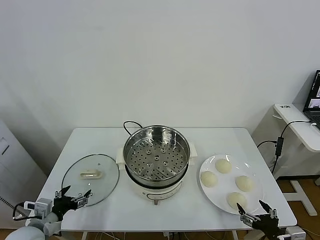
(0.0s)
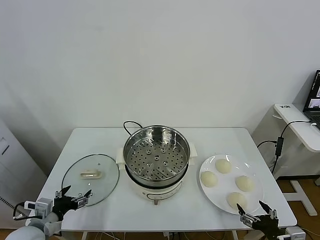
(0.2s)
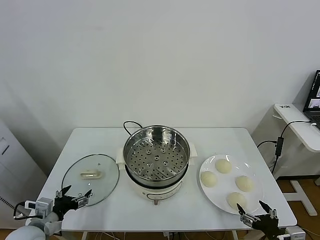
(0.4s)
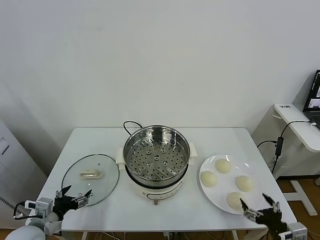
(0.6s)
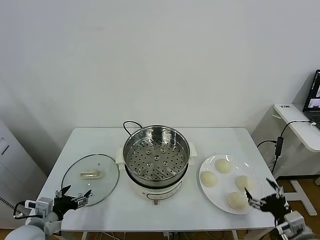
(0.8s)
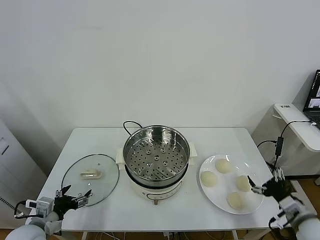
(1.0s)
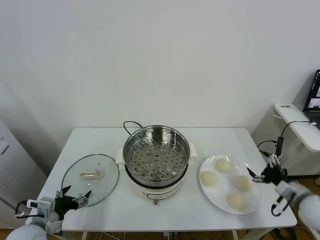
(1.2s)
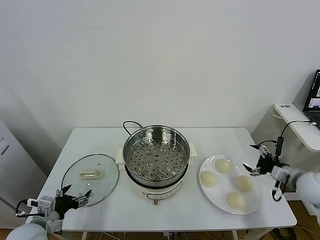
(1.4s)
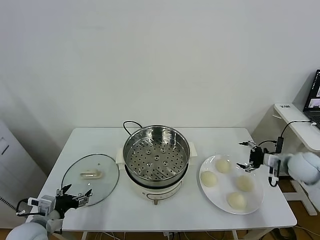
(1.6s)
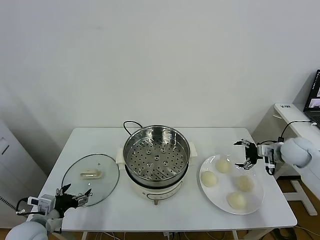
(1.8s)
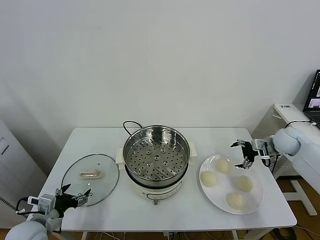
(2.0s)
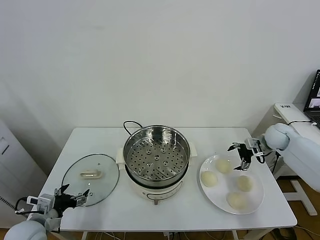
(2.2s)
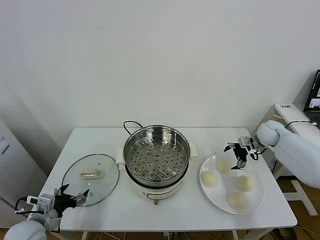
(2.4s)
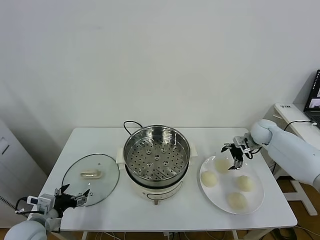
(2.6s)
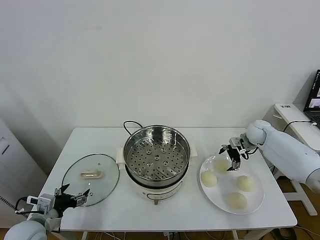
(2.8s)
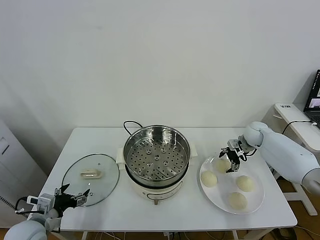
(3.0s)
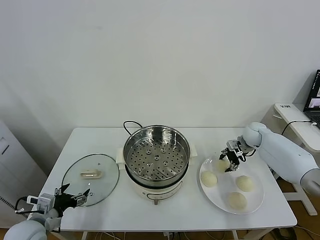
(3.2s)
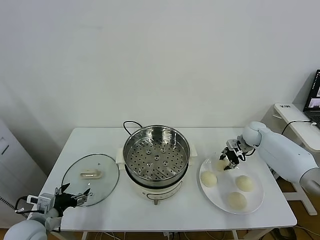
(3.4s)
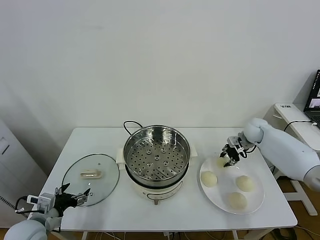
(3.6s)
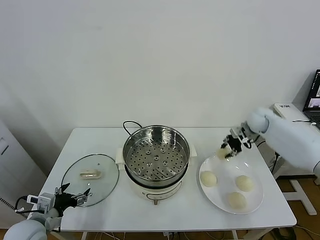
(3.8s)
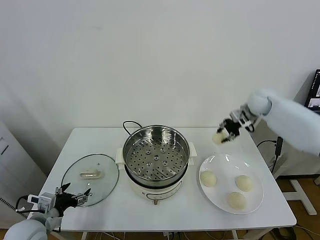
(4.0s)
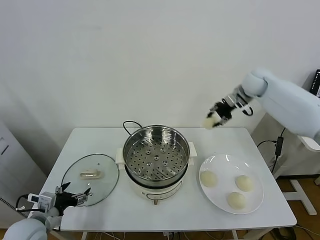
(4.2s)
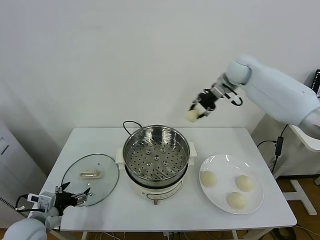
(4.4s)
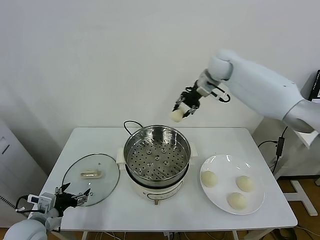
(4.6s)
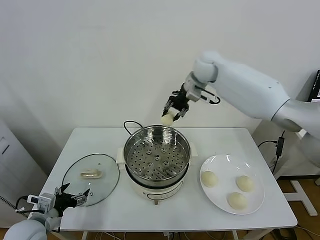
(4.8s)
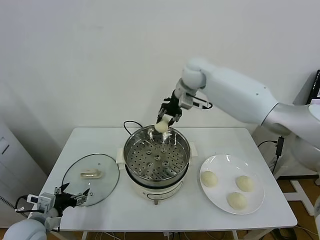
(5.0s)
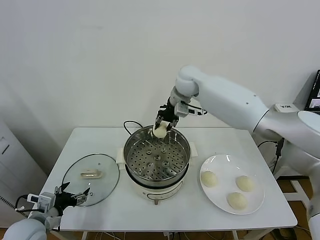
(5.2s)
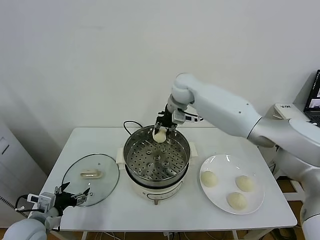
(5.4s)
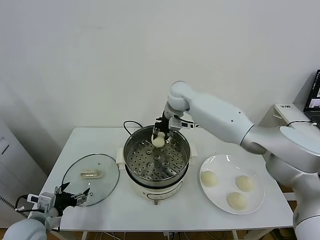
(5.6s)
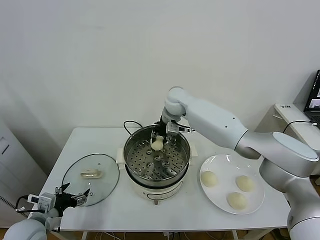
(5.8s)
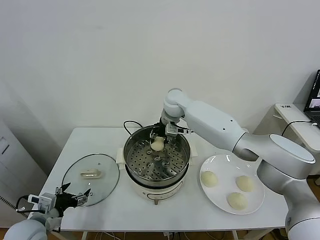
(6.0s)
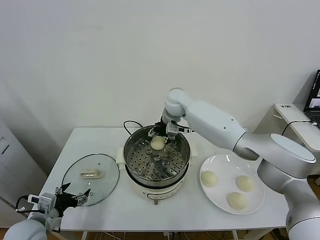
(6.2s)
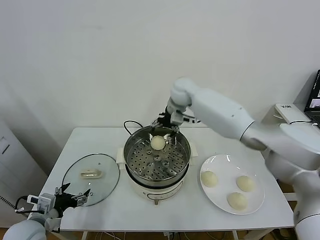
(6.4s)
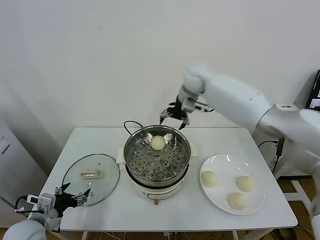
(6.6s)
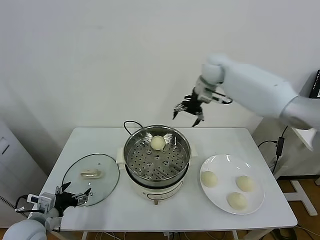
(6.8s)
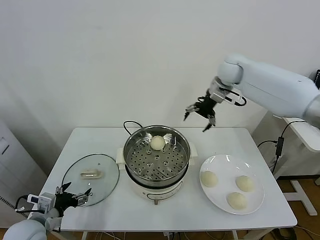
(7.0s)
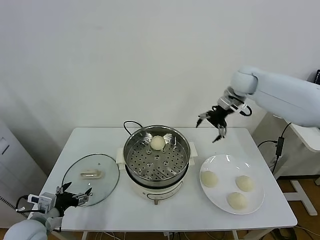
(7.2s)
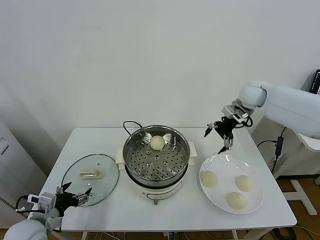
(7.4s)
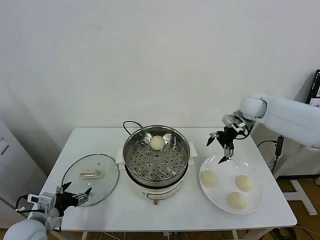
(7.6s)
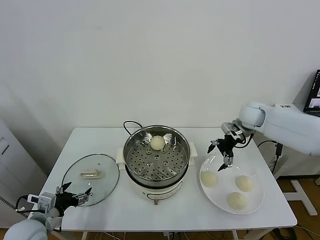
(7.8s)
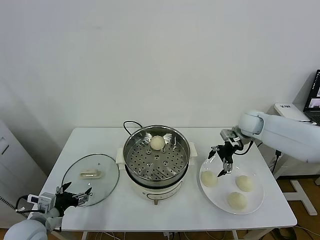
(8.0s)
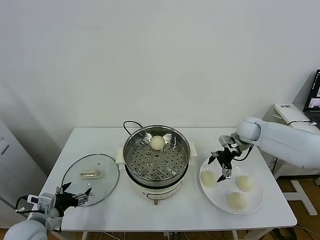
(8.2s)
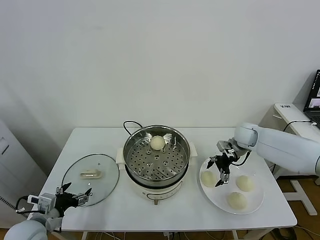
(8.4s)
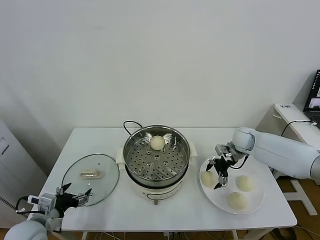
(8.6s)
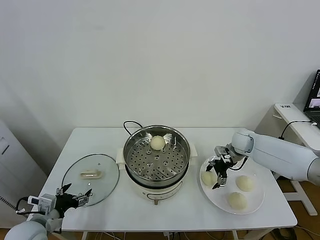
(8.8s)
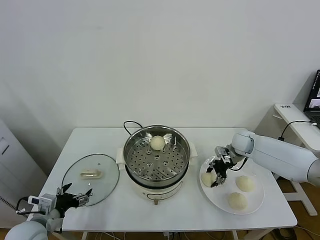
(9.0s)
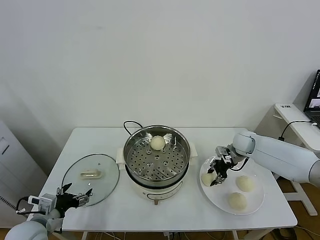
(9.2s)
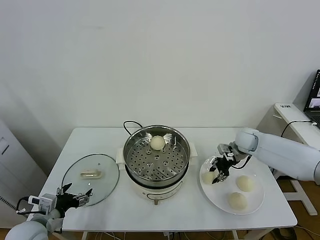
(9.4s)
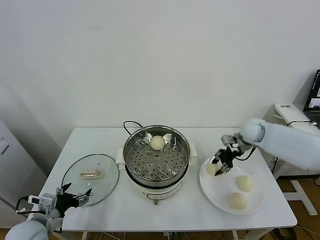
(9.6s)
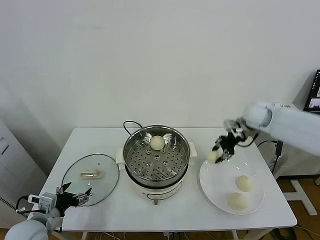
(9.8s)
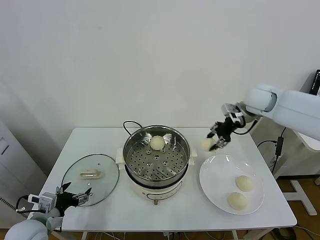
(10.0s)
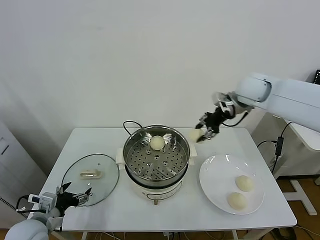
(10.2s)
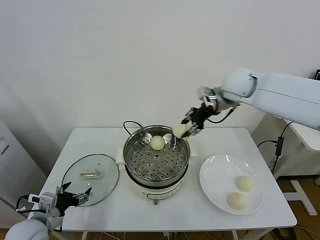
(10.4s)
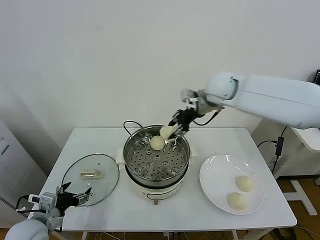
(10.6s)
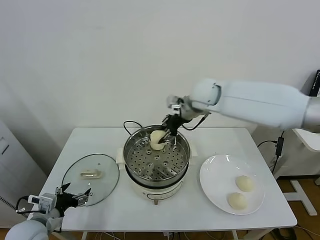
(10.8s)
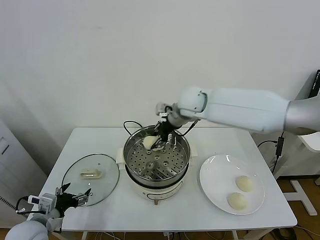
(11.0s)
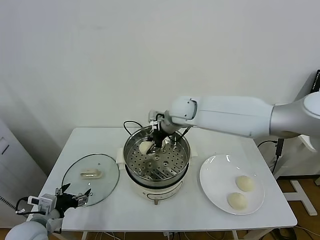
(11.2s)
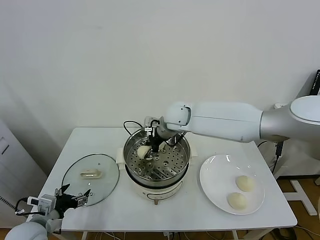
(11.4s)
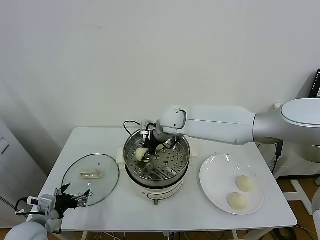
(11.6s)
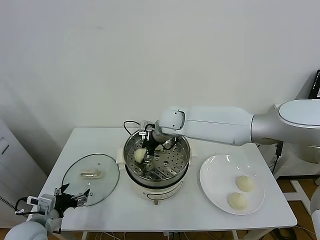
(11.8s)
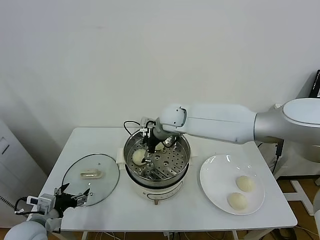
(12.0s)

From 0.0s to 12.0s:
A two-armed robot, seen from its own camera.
Task of the whole recording: take steamed baozi put them in steamer.
Step, from 0.0s to 3.0s: Grasp the baozi in the plate with right gripper.
Step, from 3.4s to 6.2s: Place the baozi on the steamer with right gripper.
Step, from 6.4s to 9.0s: Grasp the baozi in the plate with right gripper.
From 1.6s to 3.0s: The right gripper is displaced forward and to the left by roughly 15 cm.
From 3.0s to 4.4s: The right gripper travels upward and to the left by approximately 30 cm, and closes.
From 4.4s to 6.0s: The right gripper heads to the left and downward, covering some 20 cm, and opens.
From 6.0s to 7.6s: The right gripper is displaced to the right by about 25 cm, and opens.
From 7.6s to 9.0s: The right gripper travels downward by approximately 15 cm, and closes its fingers.
From 9.0s to 10.4s: The right gripper travels upward and to the left by about 30 cm.
From 10.4s to 12.0s: The right gripper heads to the left and downward, covering about 20 cm, and opens its fingers.

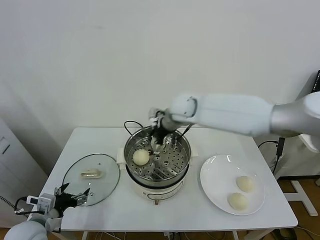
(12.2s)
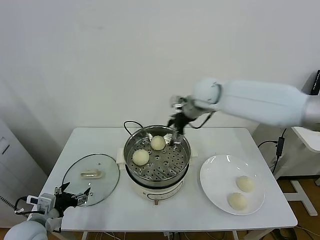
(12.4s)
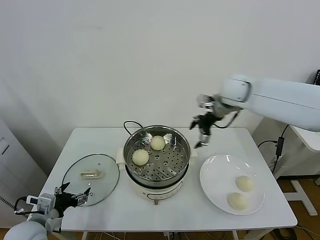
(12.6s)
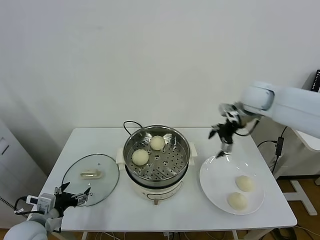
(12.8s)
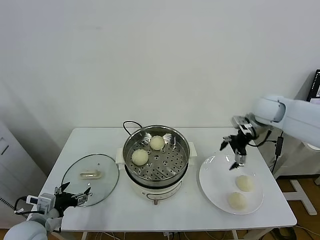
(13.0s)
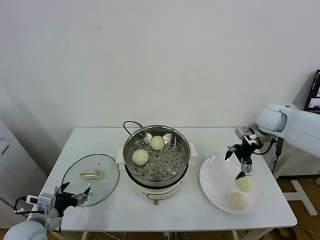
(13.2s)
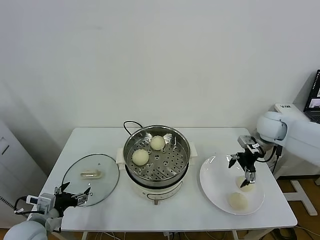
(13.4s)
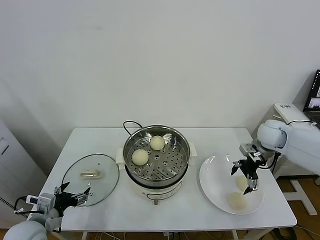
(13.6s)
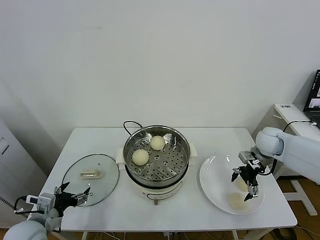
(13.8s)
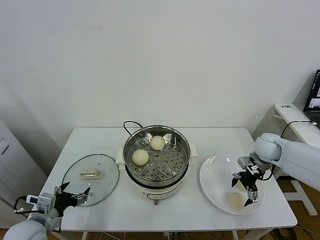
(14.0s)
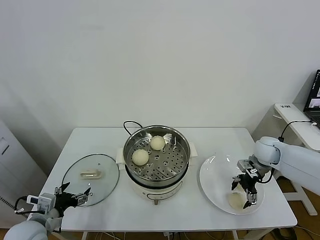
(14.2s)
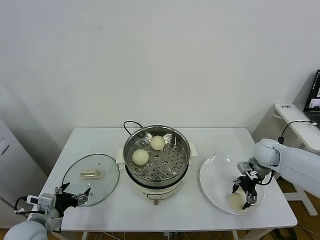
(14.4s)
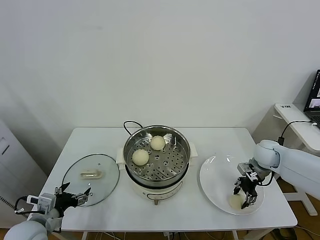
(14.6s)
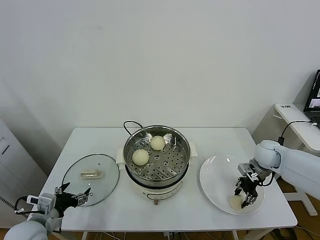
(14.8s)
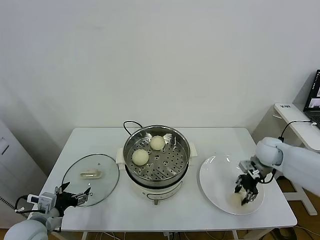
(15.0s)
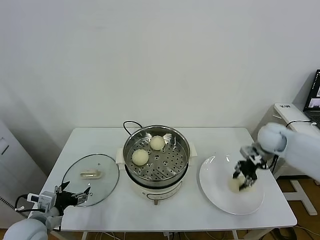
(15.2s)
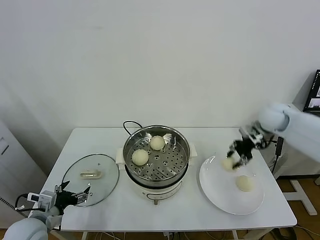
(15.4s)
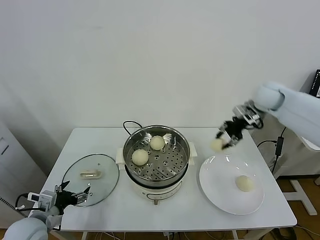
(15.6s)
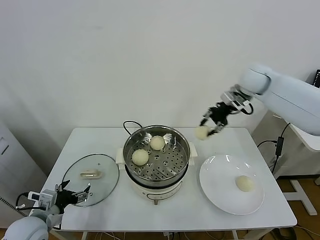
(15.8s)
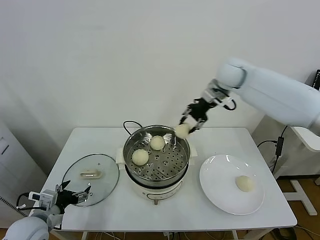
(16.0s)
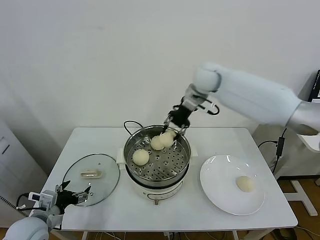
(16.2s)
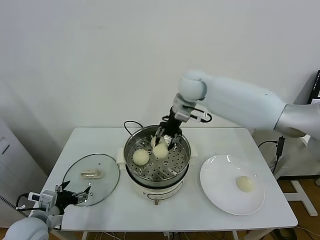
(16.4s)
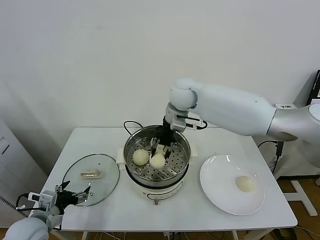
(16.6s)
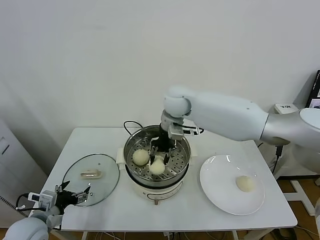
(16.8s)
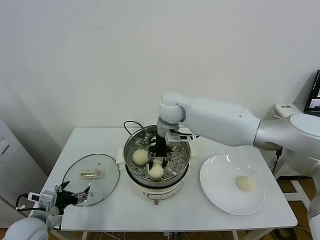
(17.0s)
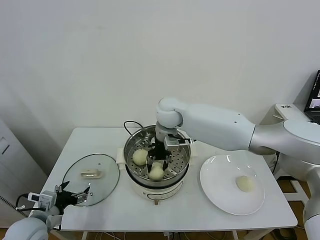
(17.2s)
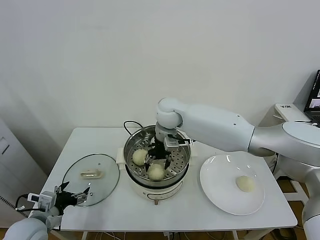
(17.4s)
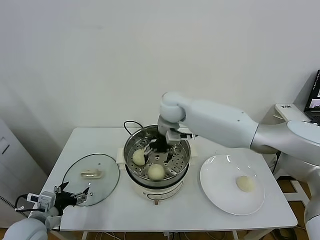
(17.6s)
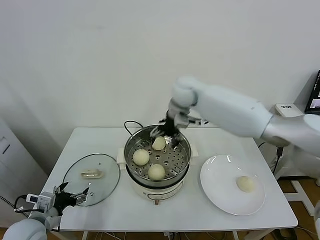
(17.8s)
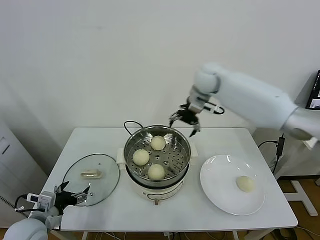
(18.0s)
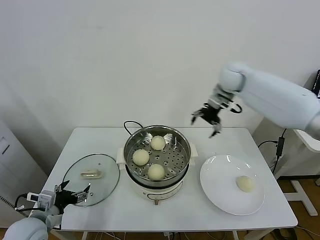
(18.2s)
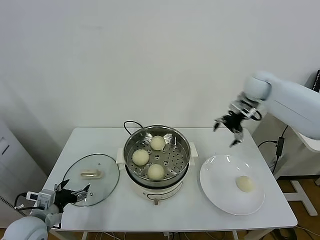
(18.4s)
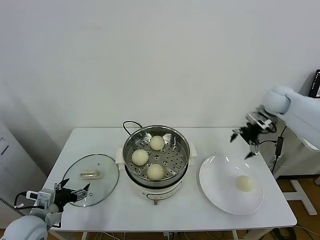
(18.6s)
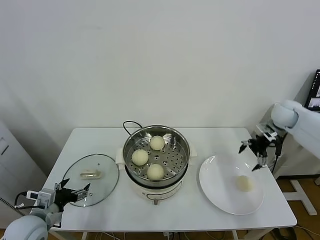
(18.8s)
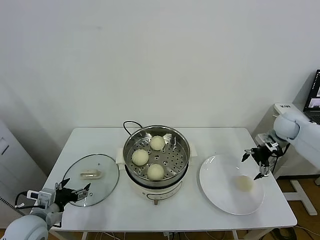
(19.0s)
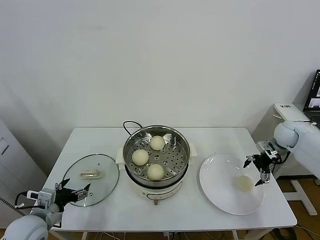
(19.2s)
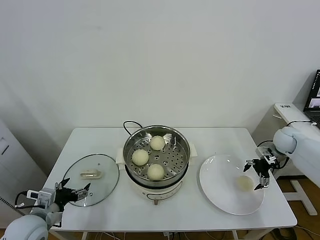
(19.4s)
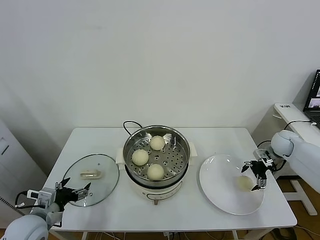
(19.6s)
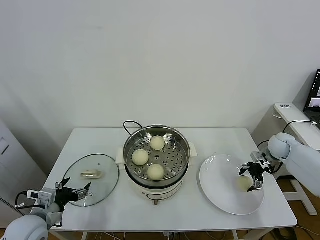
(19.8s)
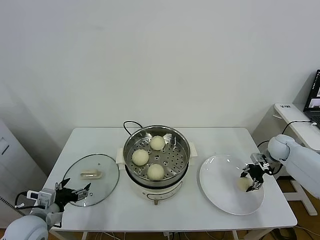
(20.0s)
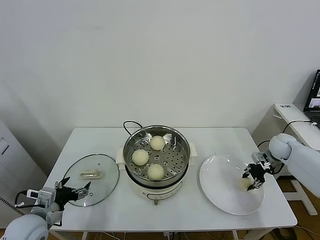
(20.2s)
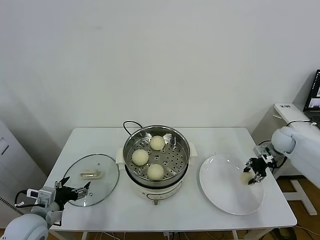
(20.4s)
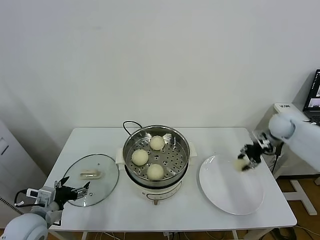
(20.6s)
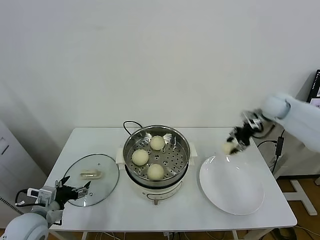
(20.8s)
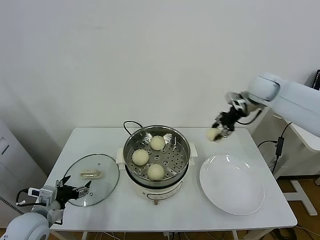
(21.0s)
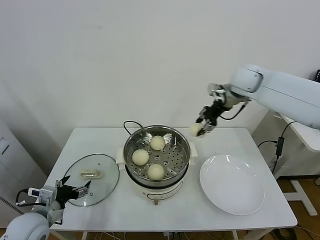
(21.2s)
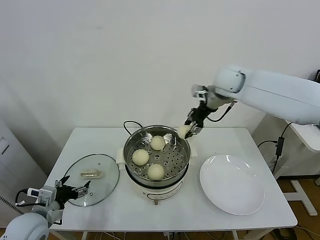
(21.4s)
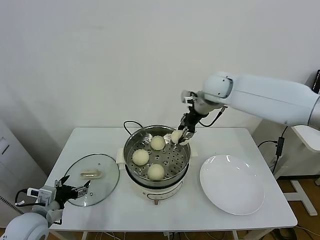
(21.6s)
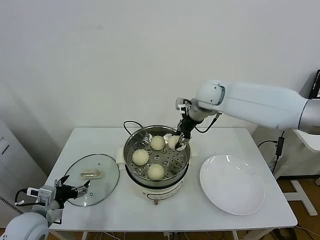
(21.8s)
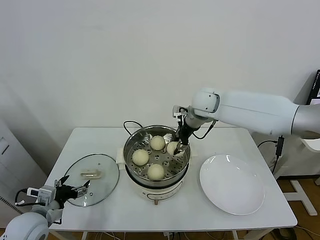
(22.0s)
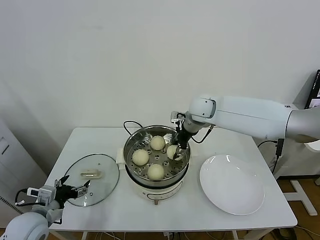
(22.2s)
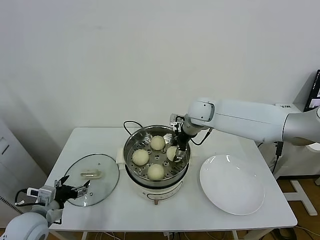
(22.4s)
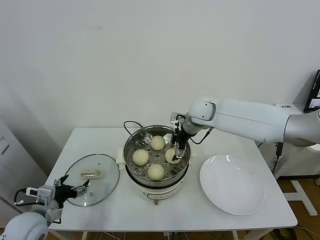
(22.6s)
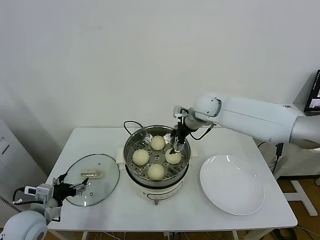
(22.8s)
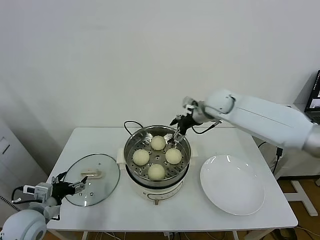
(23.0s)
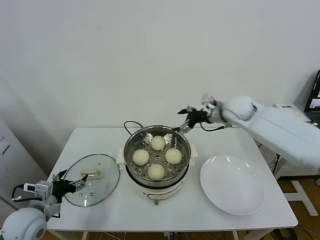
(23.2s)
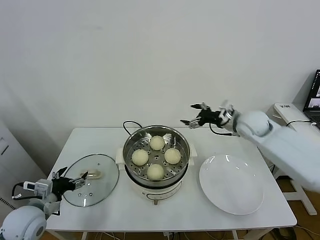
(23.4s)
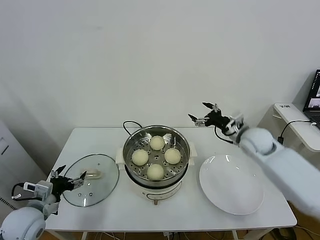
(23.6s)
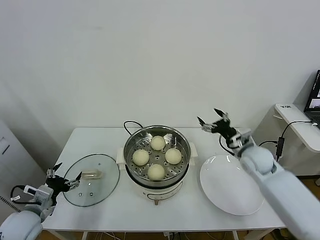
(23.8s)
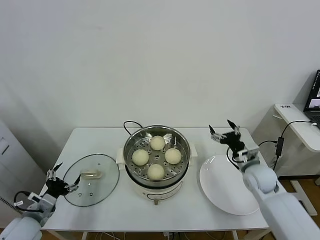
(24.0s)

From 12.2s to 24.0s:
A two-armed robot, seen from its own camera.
Task of the whole recording: take steamed baozi put them in steamer.
Step, from 12.2s to 14.6s: Grasp the baozi in the plate with right gripper.
Step, from 14.8s to 17.4s: Place the baozi on the steamer with right gripper.
Step, from 17.6s to 20.2s: Grasp the baozi in the plate with right gripper.
Step, from 20.4s to 22.6s: Place the baozi on the steamer with right gripper.
From 12.2s to 13.6s: The right gripper travels to the right by approximately 30 cm.
From 13.6s to 15.2s: The right gripper travels downward and back again, some 5 cm each way, and closes.
From 15.2s to 16.6s: The right gripper heads to the left, covering some 30 cm.
From 16.6s to 18.2s: The right gripper shifts roughly 20 cm to the right, and opens up.
From 18.2s to 19.6s: The right gripper moves downward and to the right, some 30 cm.
From 19.6s to 21.0s: The right gripper travels upward and to the left by about 25 cm, and closes.
From 21.0s to 22.6s: The right gripper heads to the left and downward, covering approximately 20 cm, and opens.
From 22.6s to 24.0s: The left gripper moves about 5 cm; the right gripper moves to the right, downward and backward, some 30 cm.
